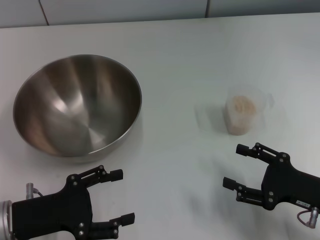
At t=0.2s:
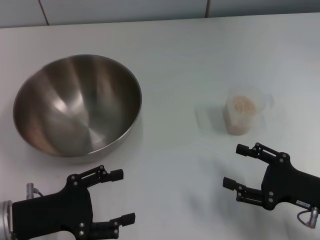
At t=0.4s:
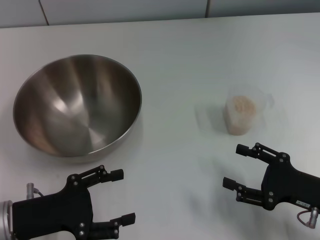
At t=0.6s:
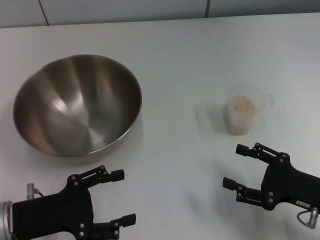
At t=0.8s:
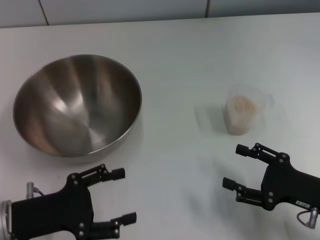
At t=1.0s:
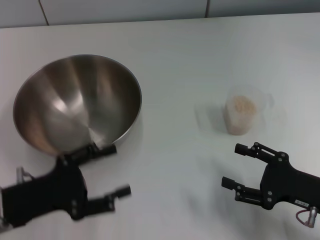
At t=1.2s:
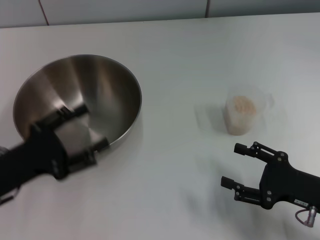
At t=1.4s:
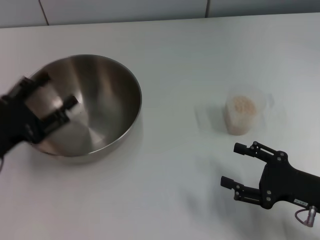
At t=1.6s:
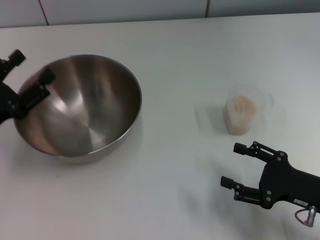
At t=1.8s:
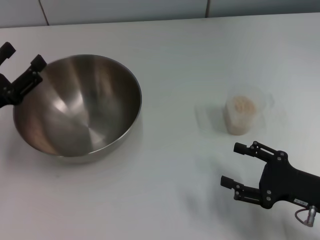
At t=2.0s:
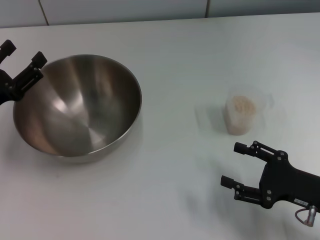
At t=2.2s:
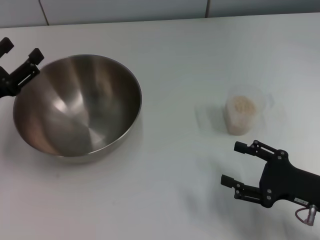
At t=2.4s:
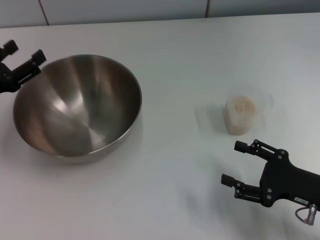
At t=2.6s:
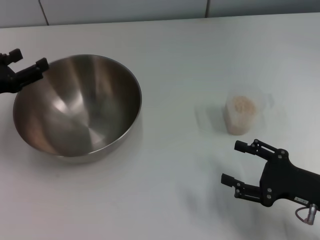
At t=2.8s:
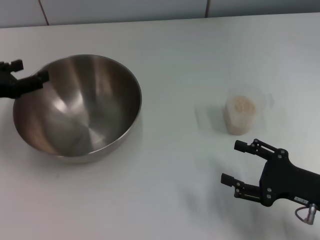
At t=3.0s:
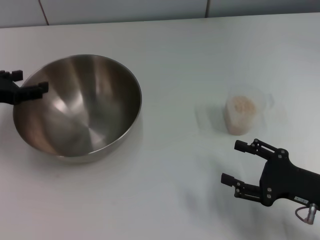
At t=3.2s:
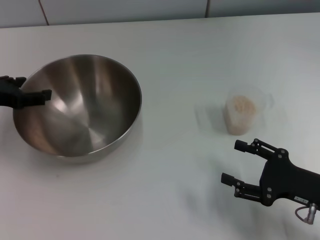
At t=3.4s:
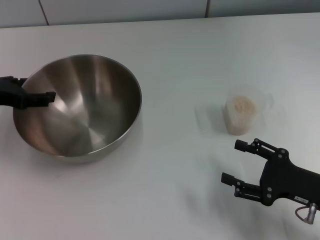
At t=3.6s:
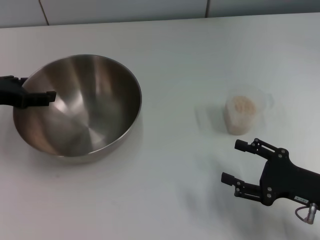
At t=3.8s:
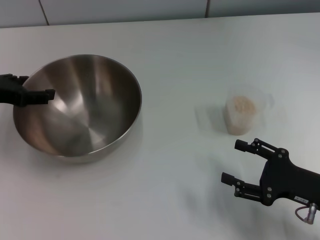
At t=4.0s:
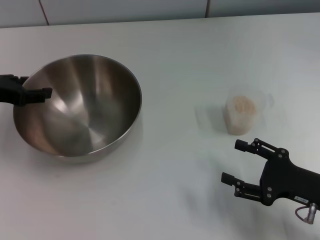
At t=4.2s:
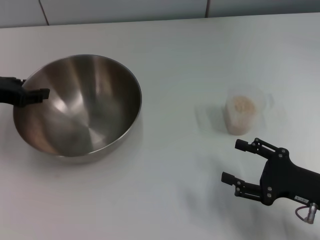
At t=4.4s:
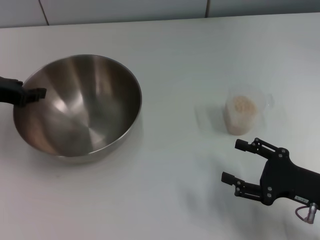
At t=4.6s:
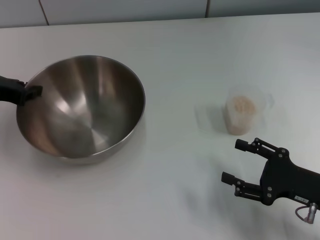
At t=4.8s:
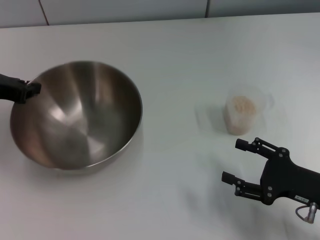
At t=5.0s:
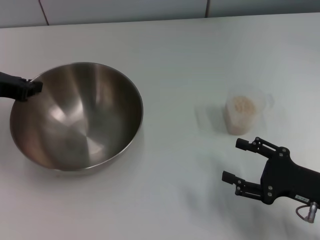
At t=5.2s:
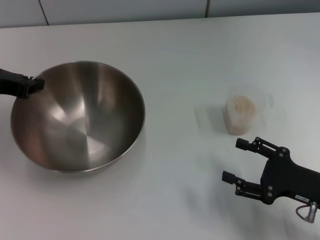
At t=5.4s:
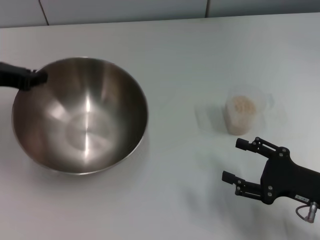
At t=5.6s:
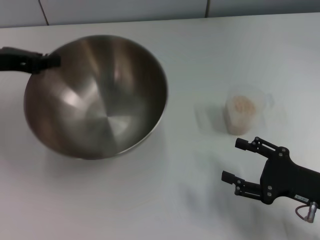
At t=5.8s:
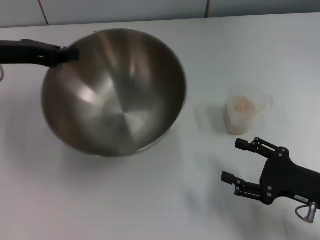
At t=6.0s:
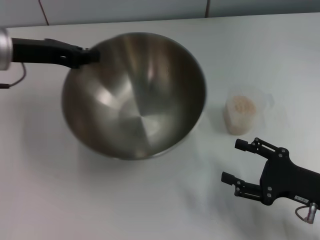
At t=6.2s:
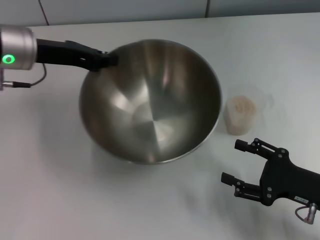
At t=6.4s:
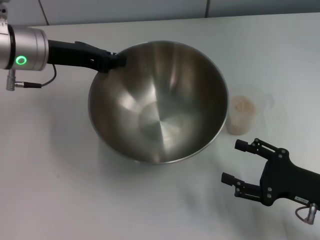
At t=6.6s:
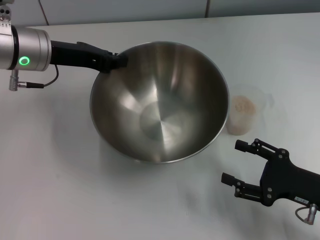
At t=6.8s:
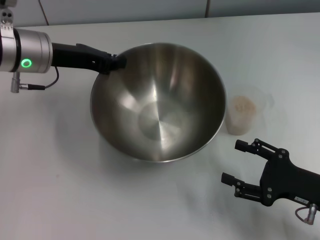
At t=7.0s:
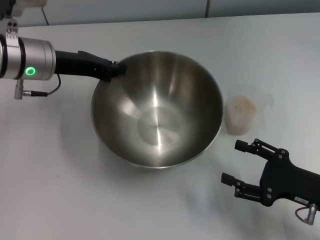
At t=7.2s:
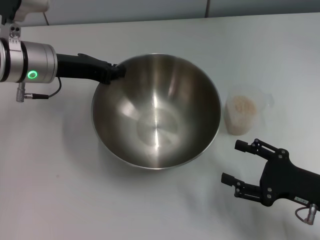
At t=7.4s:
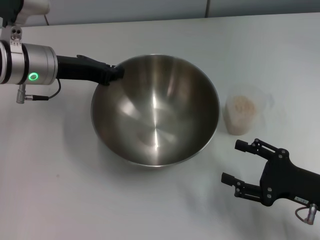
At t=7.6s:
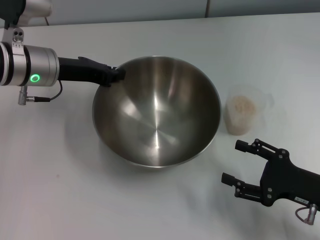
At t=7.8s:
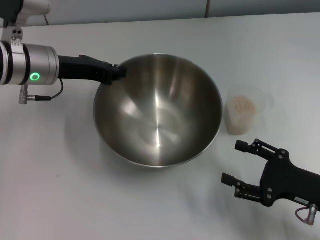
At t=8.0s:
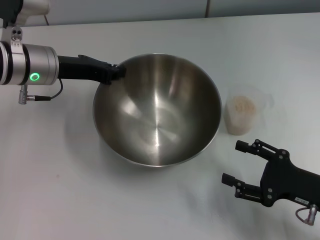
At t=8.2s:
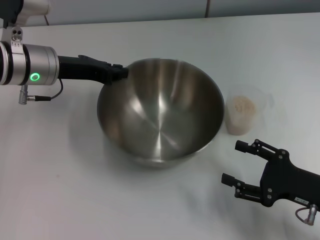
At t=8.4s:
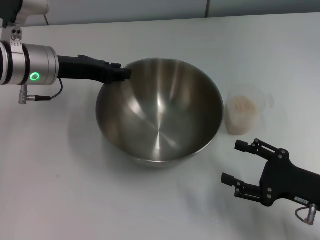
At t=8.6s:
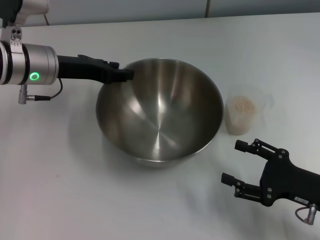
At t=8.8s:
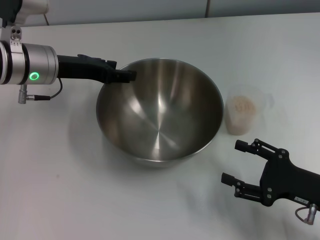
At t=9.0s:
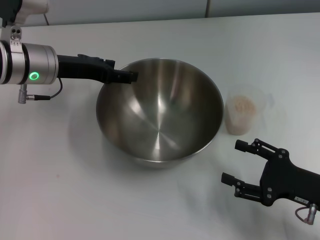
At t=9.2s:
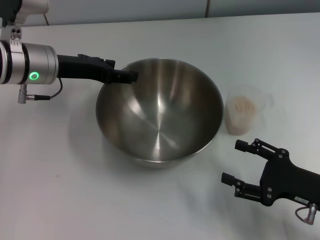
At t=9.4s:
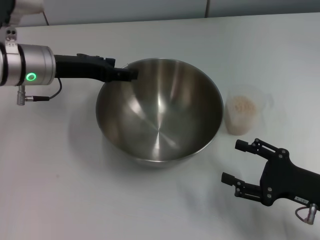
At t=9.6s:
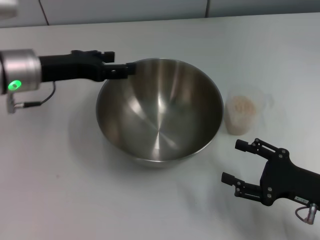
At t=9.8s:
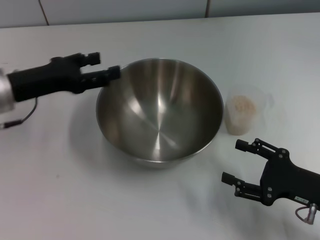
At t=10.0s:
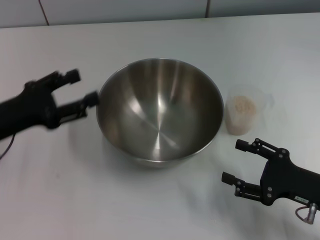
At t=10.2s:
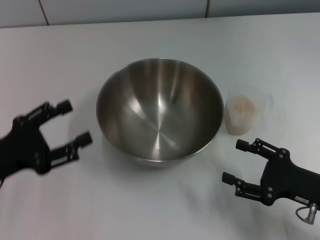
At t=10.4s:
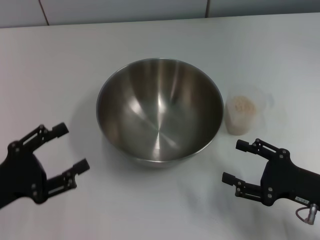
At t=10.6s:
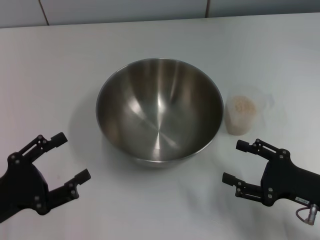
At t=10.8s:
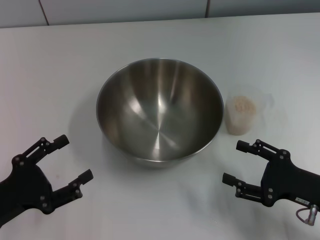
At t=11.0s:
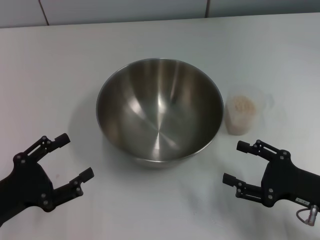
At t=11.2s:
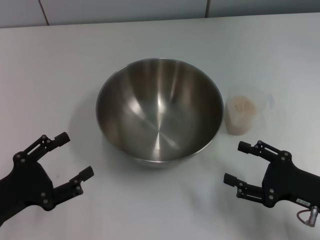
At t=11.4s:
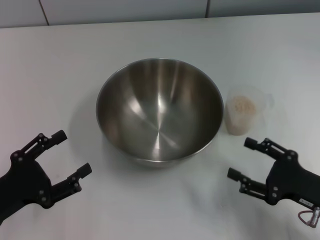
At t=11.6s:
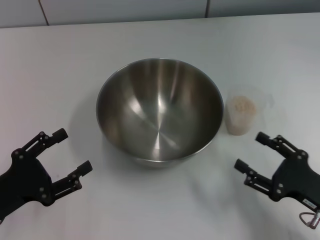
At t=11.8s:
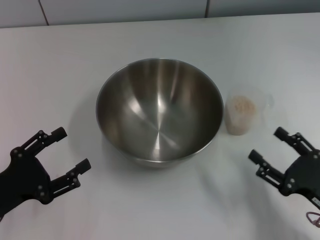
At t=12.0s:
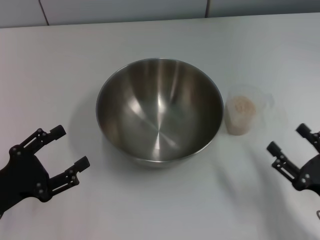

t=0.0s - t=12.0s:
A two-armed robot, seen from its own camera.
Task of the whole recording: Place the bowl in the middle of the table with one hand and pour the rice from the grain cup into it with the other hand.
Step, t=0.0s - t=5.2s: Pick up the bowl with the left gripper.
Step, t=5.6s - t=9.4s: Place the bowl in the center of view with the left gripper.
t=0.0s - t=1.6s: The left gripper shifts approximately 5 cm forward.
t=1.6s - t=3.0s: The left gripper shifts some 10 cm forward.
t=4.4s - t=6.0s: The left gripper travels to the right by about 5 cm, and closes up.
t=6.0s - t=7.6s: The left gripper ends up roughly 5 cm from where it was.
t=7.6s - t=9.0s: The left gripper opens.
t=9.0s - t=10.4s: The left gripper is displaced backward and to the left by approximately 20 cm.
t=10.4s - t=12.0s: The right gripper goes about 5 cm backward.

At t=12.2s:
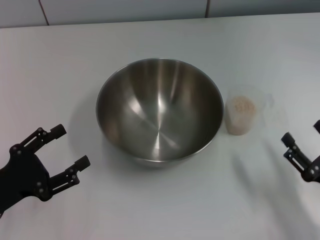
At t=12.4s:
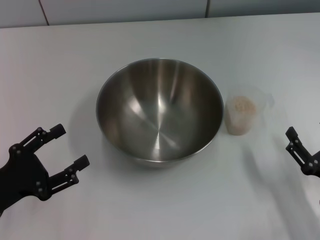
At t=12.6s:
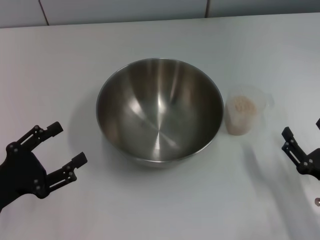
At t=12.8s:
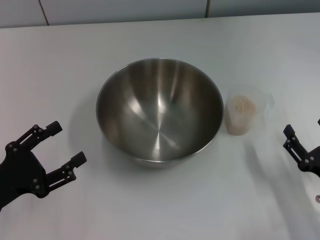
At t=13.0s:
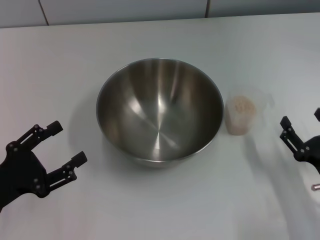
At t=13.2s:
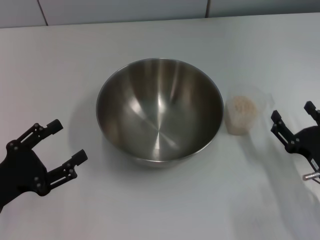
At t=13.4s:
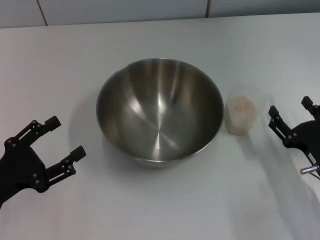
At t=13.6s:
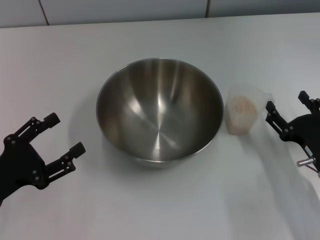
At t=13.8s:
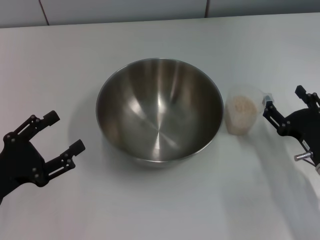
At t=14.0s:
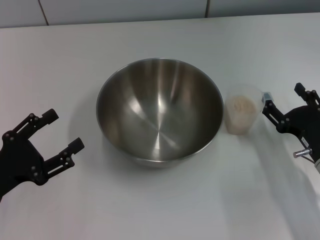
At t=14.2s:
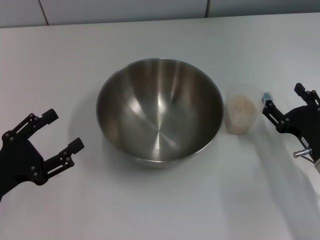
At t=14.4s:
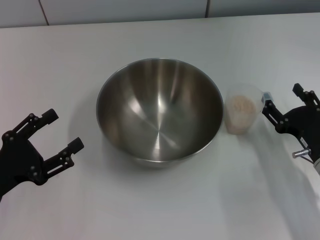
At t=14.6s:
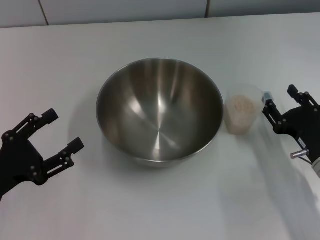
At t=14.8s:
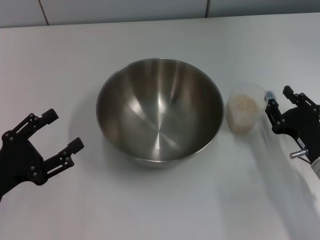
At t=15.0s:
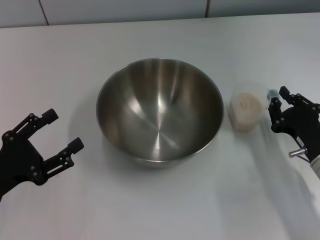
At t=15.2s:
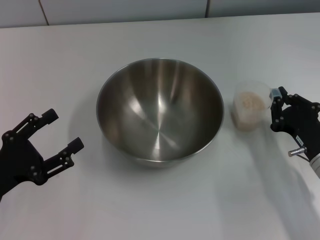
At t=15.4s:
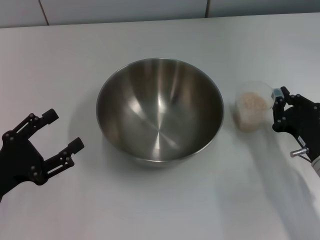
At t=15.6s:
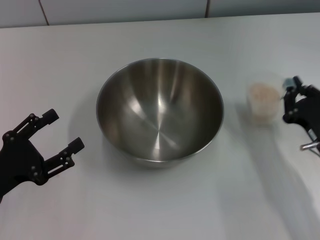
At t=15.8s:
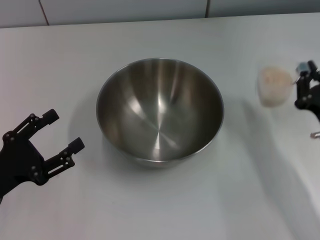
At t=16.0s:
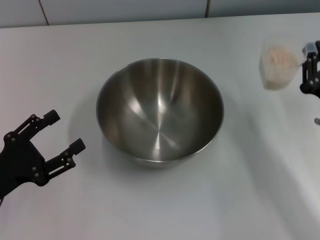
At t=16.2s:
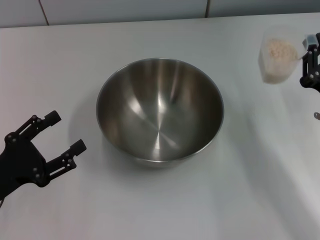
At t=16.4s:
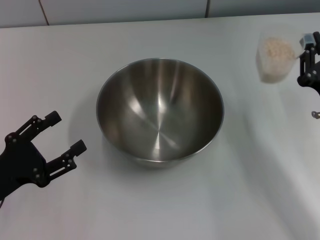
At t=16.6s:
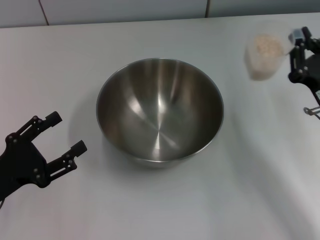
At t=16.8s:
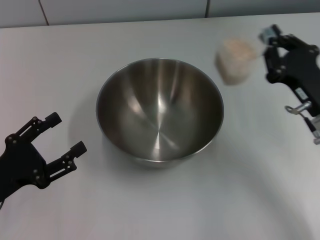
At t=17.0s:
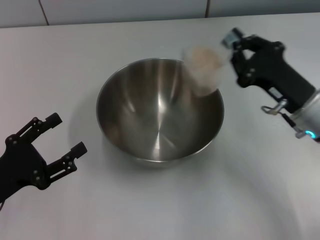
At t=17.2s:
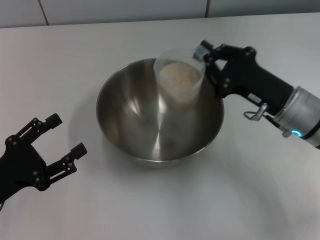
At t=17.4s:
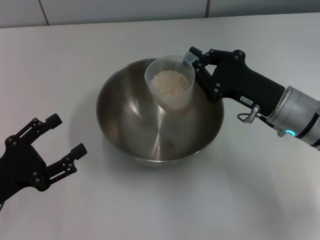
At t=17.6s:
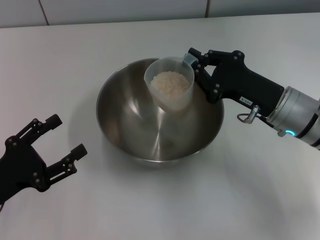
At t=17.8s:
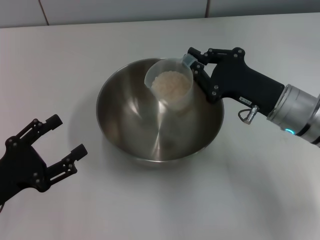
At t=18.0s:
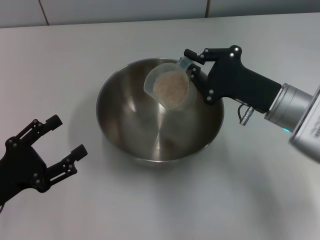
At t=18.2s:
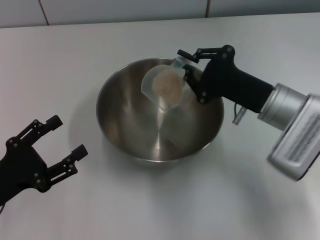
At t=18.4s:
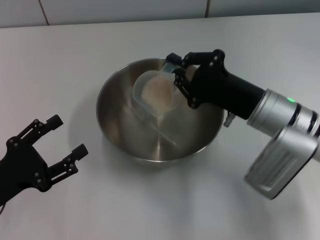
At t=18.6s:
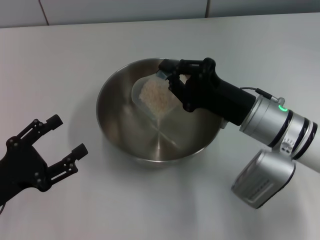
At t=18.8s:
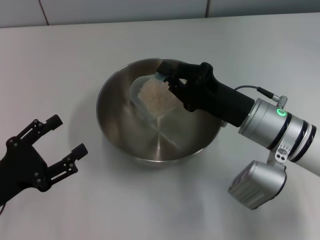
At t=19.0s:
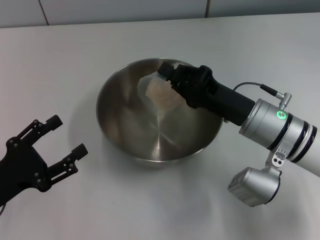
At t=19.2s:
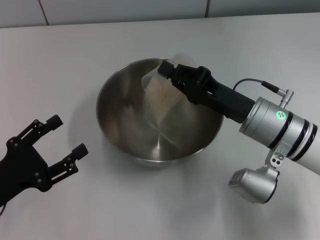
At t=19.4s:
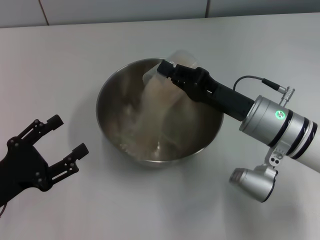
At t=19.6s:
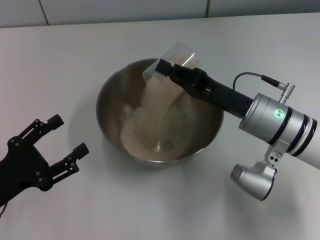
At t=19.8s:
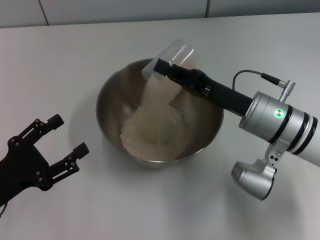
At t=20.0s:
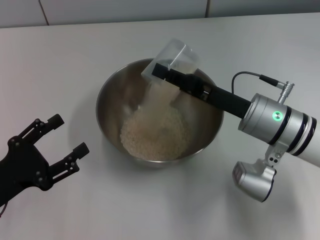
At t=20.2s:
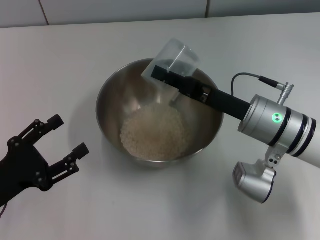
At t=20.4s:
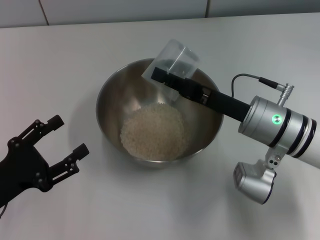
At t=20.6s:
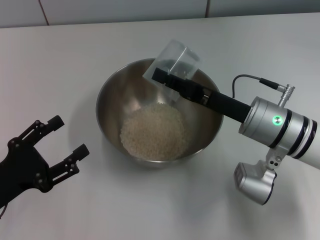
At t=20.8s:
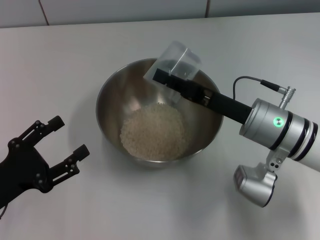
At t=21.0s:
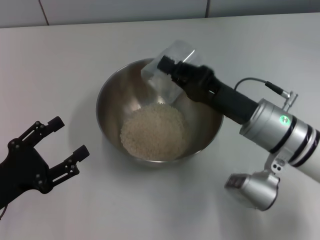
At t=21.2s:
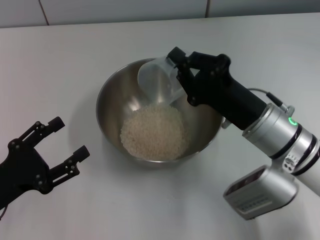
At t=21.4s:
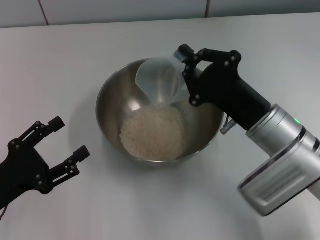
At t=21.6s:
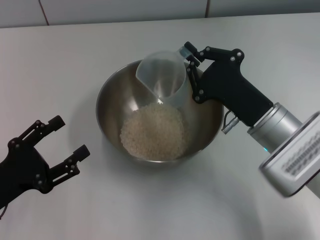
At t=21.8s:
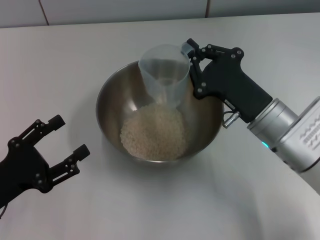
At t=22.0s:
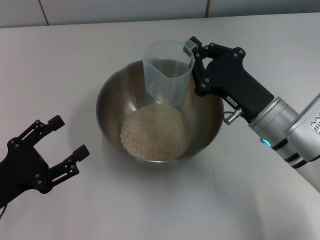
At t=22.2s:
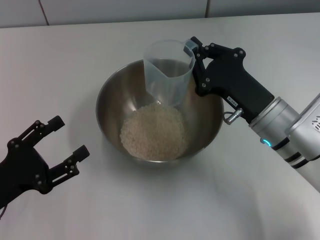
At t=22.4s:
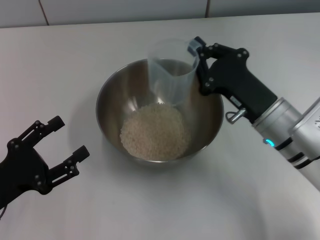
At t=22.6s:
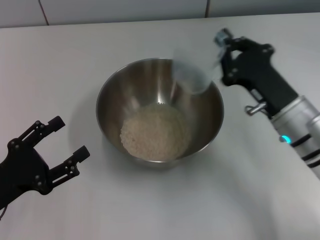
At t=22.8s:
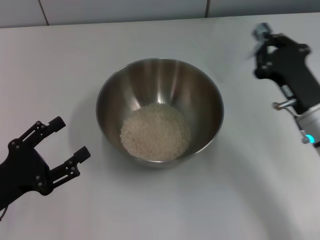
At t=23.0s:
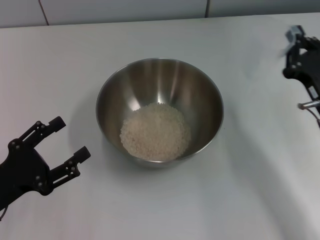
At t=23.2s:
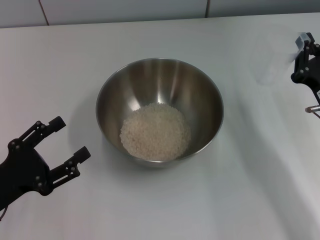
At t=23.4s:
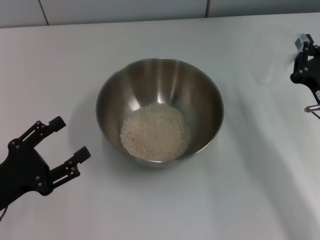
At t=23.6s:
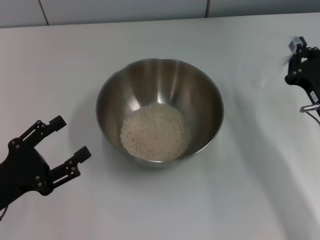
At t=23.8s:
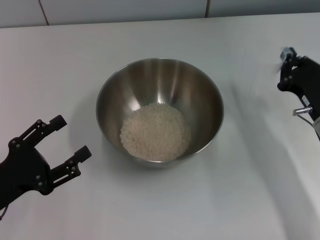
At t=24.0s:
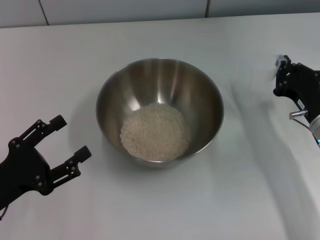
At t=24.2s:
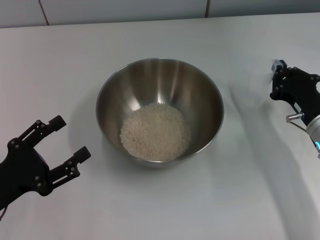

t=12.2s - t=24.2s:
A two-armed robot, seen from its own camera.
Task of the whole recording: Place the bowl in the middle of the table with one hand and pour the rice from the grain cup into it with the other hand.
Step, t=12.2s - t=16.0s: Pick up the cup with rice in it with the right gripper.
Step, t=16.2s - t=21.8s: Pour the rice from the cup into the bowl with the right gripper.
t=12.2s - t=13.8s: The right gripper shifts about 10 cm forward.
t=13.8s - t=15.2s: The right gripper closes.
t=15.2s - t=16.6s: The right gripper shifts roughly 5 cm upward.
t=16.6s - t=18.2s: The right gripper goes approximately 10 cm to the left and forward.
t=22.6s - t=24.2s: The right gripper moves to the right, approximately 5 cm.
